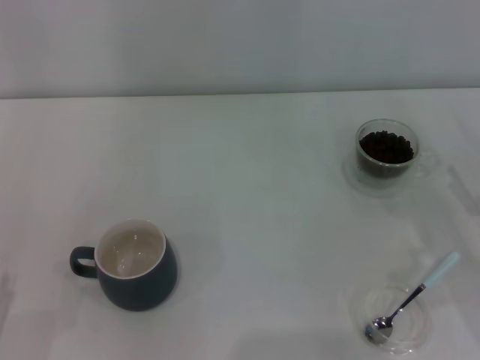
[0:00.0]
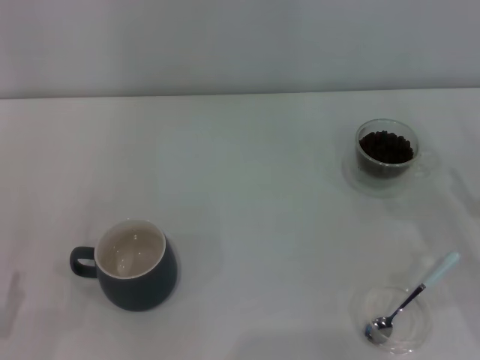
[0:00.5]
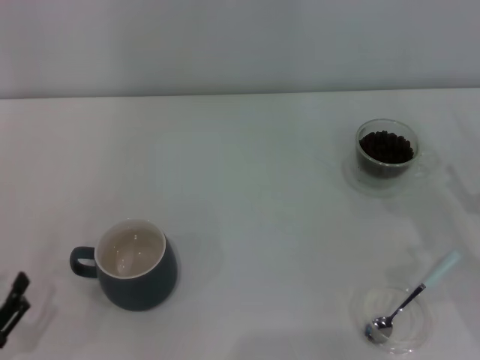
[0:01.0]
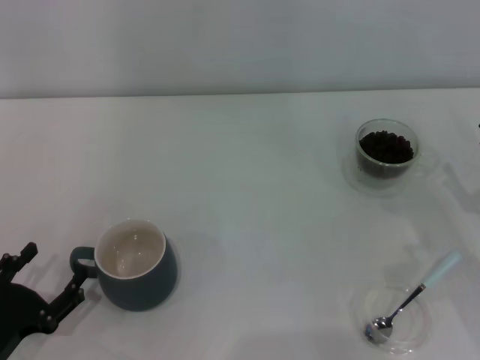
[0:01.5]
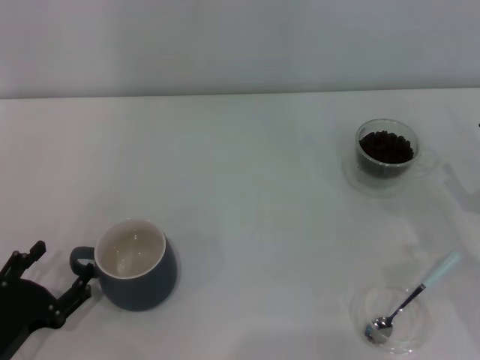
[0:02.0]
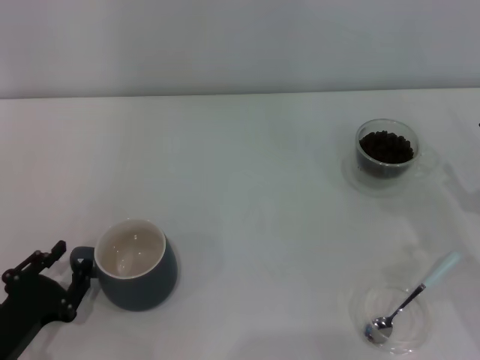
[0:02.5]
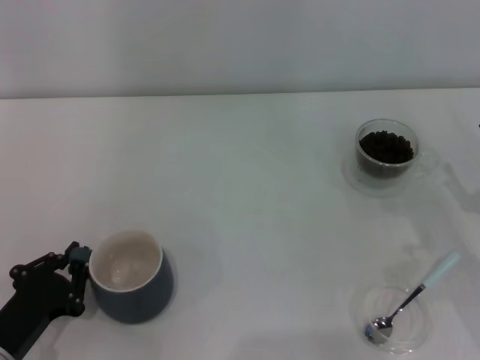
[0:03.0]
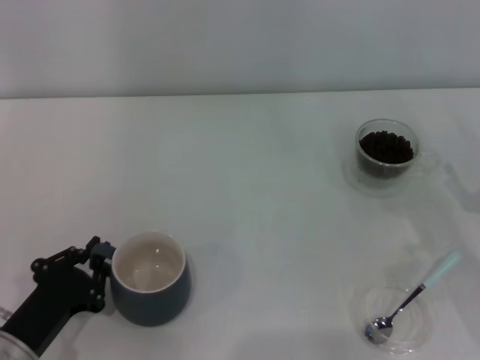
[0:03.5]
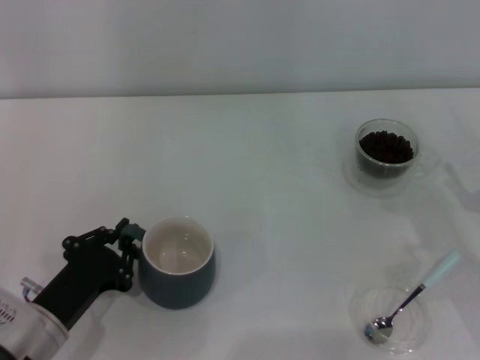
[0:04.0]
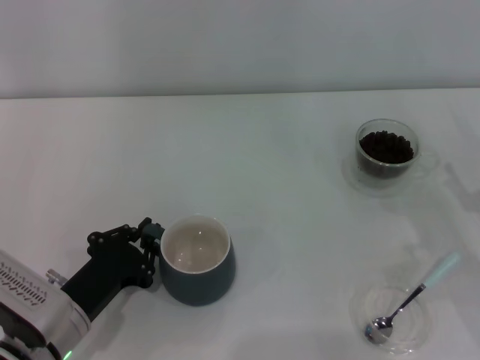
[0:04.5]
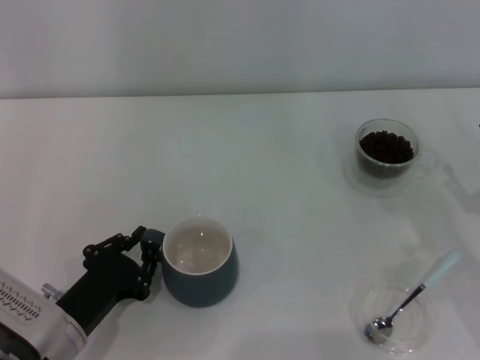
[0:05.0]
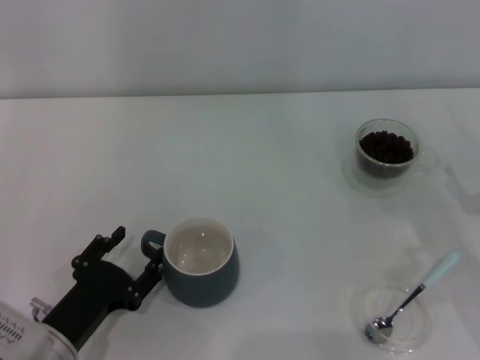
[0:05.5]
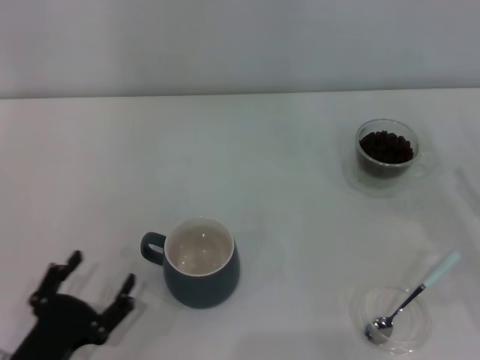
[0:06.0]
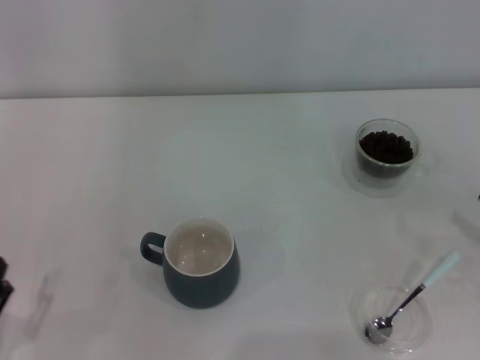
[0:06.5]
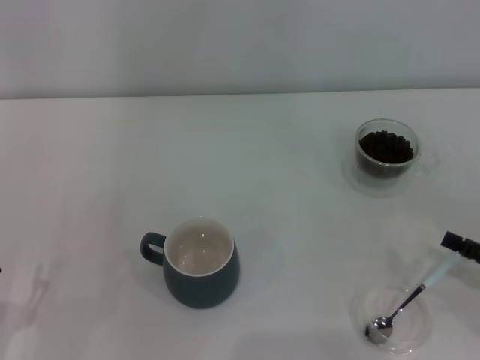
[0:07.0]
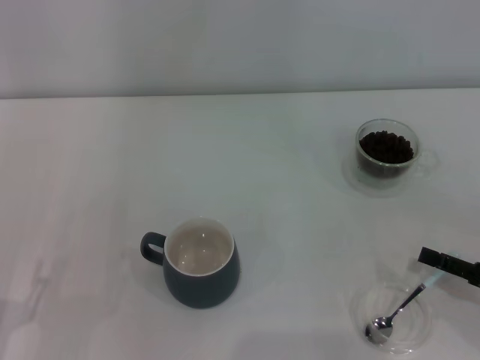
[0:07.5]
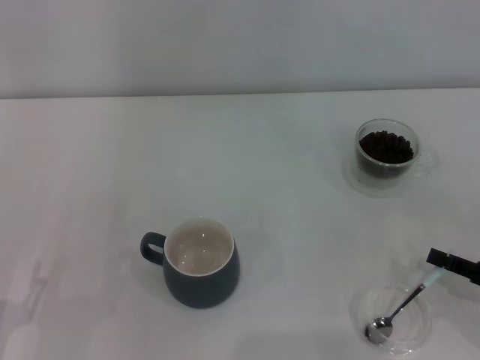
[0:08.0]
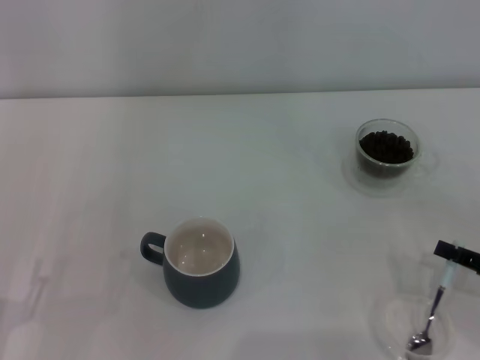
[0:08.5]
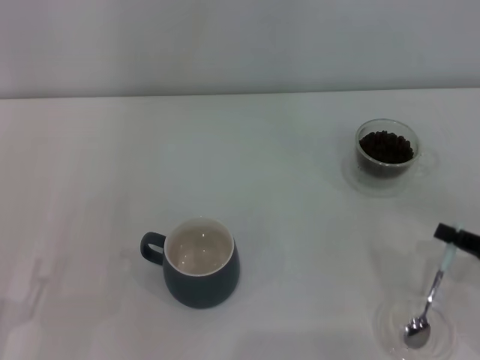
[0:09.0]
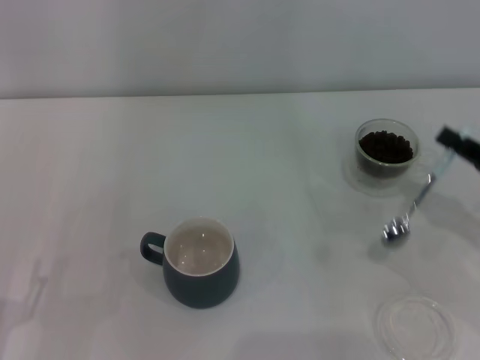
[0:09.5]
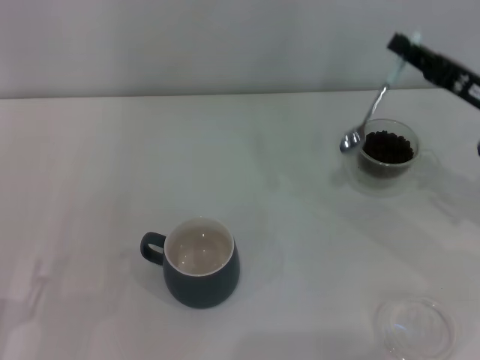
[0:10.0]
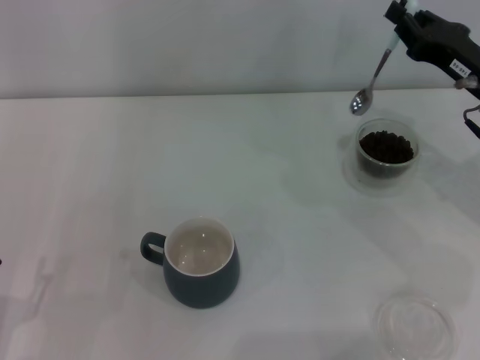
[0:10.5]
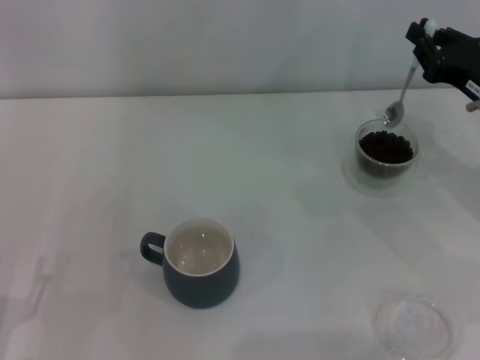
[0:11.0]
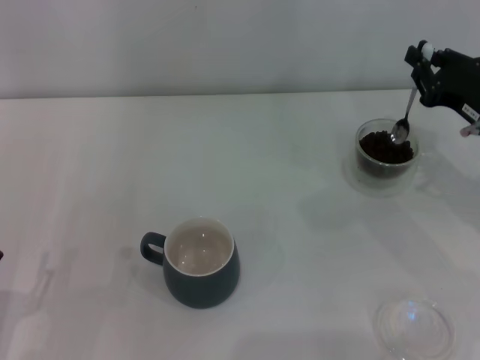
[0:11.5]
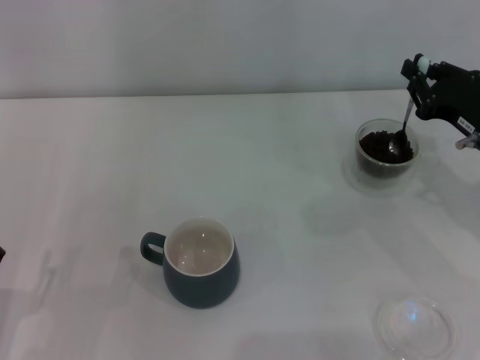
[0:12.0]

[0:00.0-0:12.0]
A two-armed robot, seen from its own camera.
Task of the whole recording: Use a blue spoon to take out the coffee beans from the glass and pour them into the gray cup.
Step, 0:00.0 to 0:05.5: Move the cup to the center of view with the left gripper.
Step, 0:06.0 to 0:09.0: Pick up the spoon with the right gripper.
0:00.0 to 0:02.0: The left gripper is displaced forward by approximately 5 cm.
0:02.0 to 0:04.0: The left gripper is displaced to the right by approximately 5 cm, and closes.
0:04.0 to 0:06.0: The left gripper travels backward by roughly 5 cm, and opens.
0:06.0 to 0:08.0: The right gripper closes its fingers. Meanwhile the left gripper is displaced to the left by some 5 cm.
0:08.0 to 0:10.0: The right gripper shifts about 15 cm forward and upward, and closes its fingers.

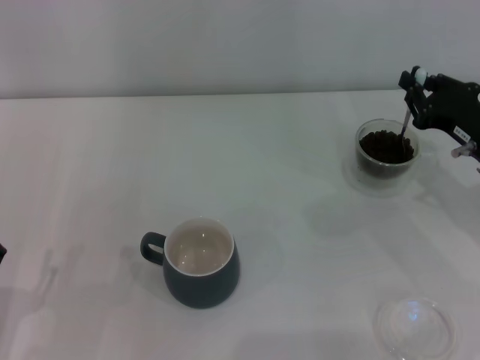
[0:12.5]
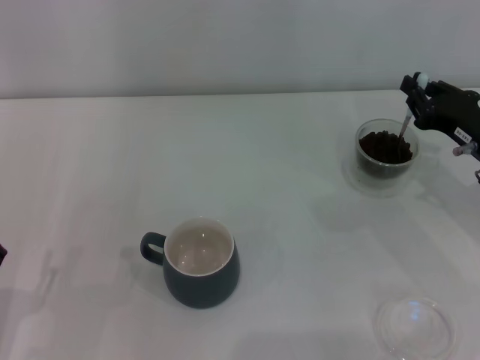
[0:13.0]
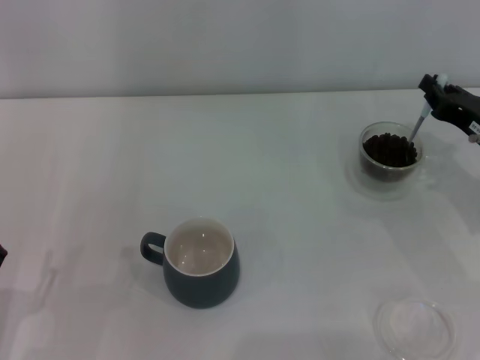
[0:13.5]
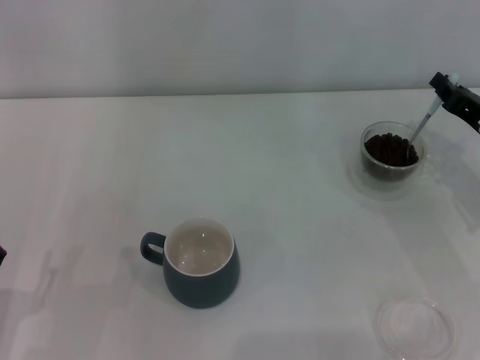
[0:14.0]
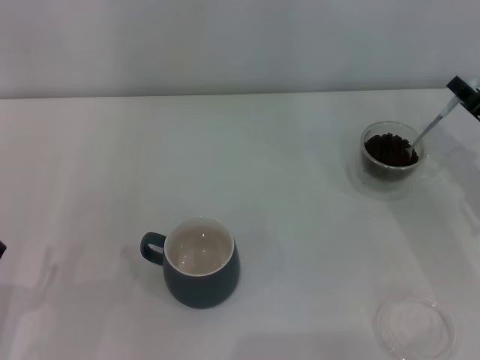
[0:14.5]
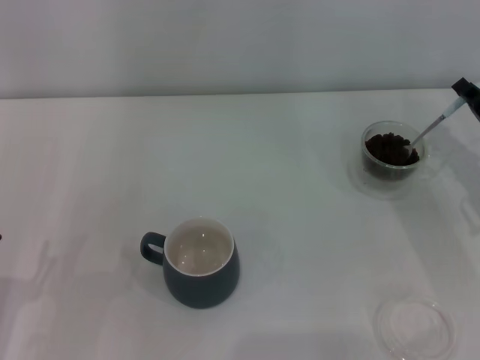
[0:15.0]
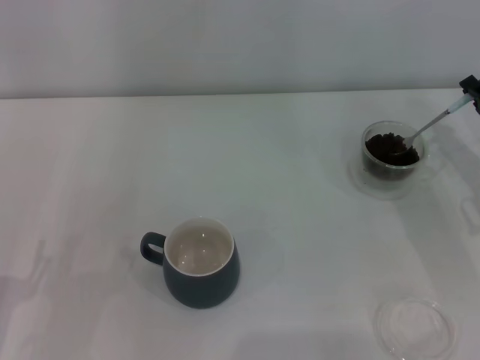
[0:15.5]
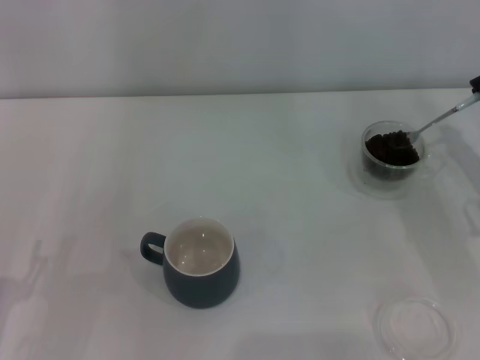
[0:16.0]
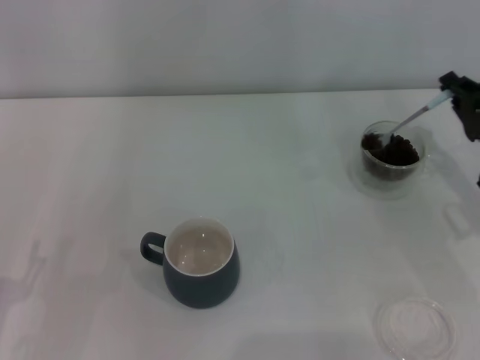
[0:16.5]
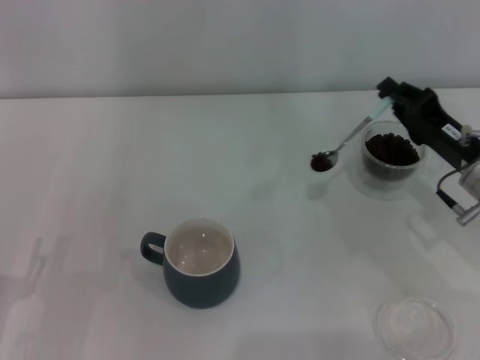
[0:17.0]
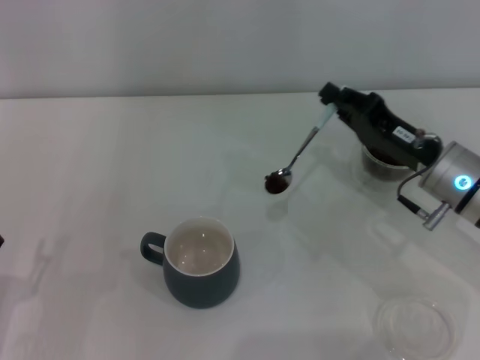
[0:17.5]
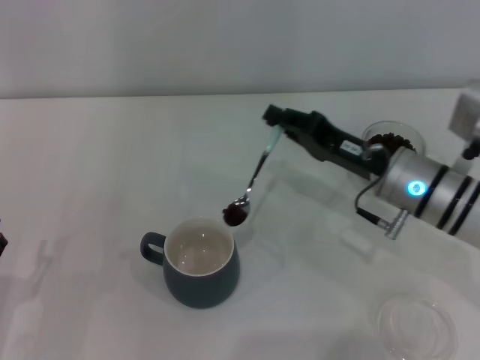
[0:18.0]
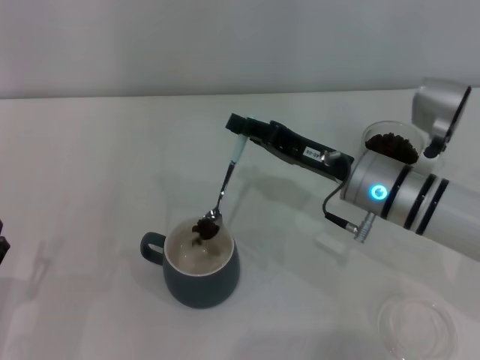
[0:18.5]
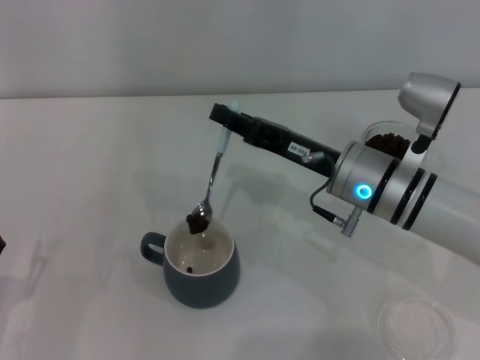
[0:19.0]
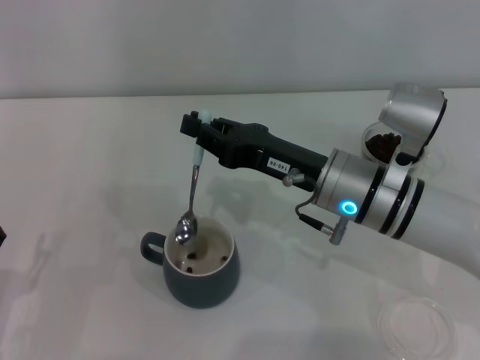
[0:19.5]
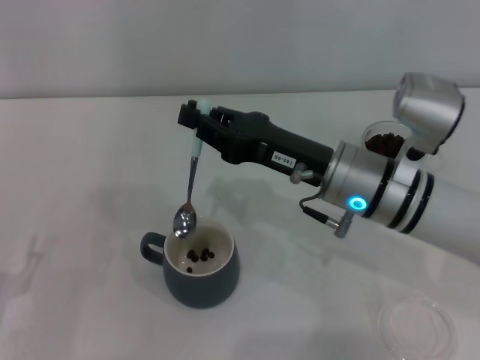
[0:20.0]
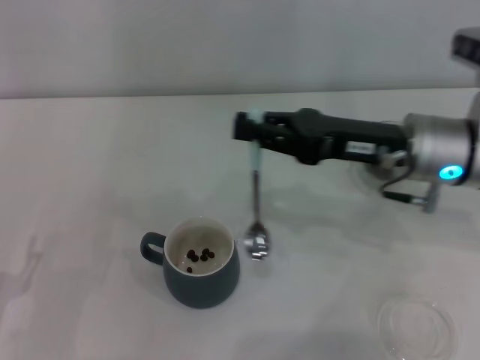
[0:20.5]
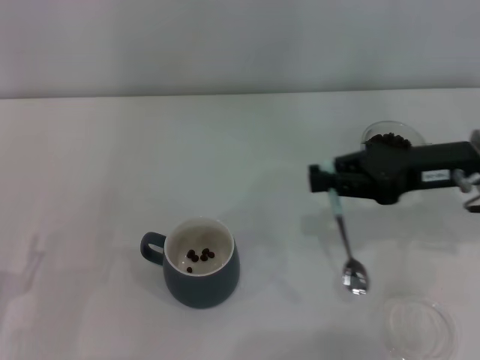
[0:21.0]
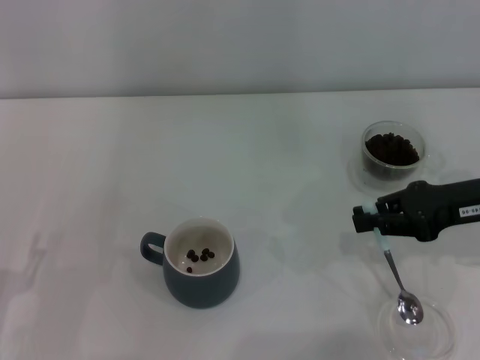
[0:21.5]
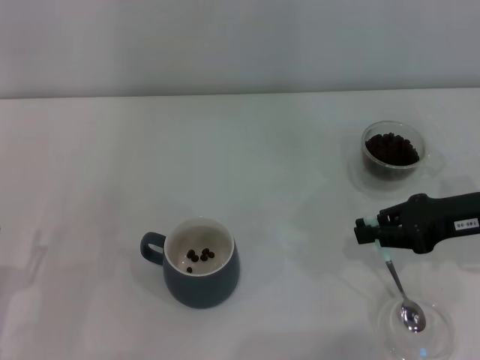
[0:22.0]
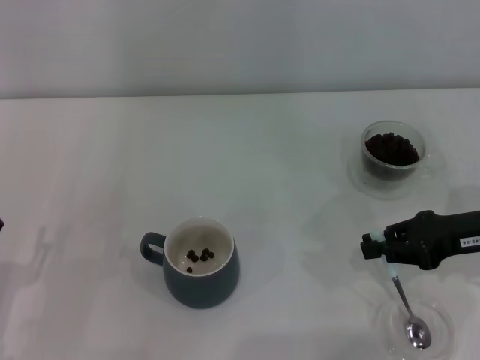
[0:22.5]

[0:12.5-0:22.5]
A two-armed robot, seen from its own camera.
Task of the whole recording: Use a blue spoon to take out the coffee beans from the glass and pour them into the gray cup.
Step, 0:12.5 to 0:20.0: Scoop a spoonful of beans into the cup with the right gripper.
0:16.5 to 0:18.5: The right gripper moves to the left, roughly 15 cm.
0:18.5 to 0:20.5: The right gripper travels upward by roughly 5 cm.
0:20.5 to 0:22.5: The right gripper heads to the right, covering roughly 10 cm.

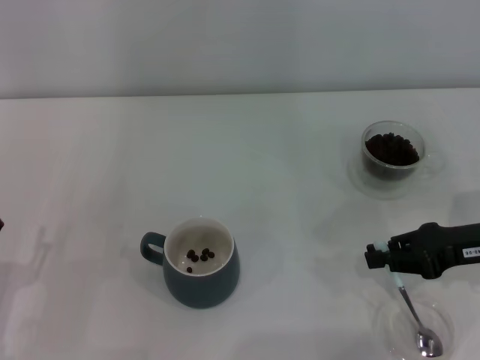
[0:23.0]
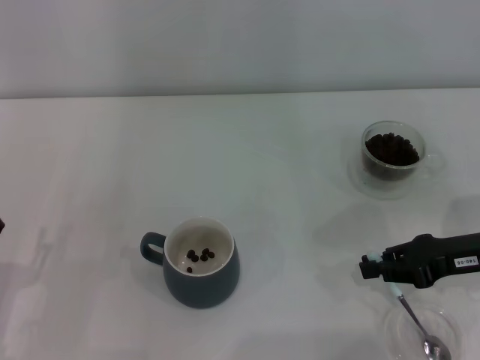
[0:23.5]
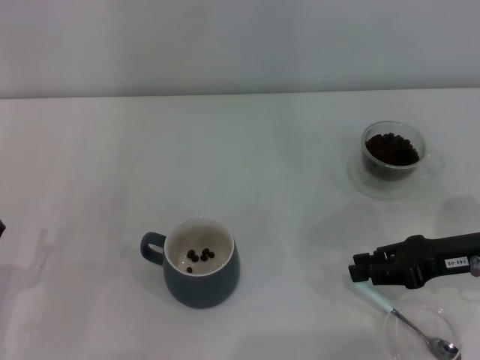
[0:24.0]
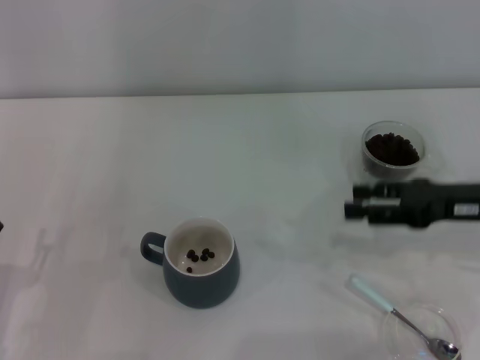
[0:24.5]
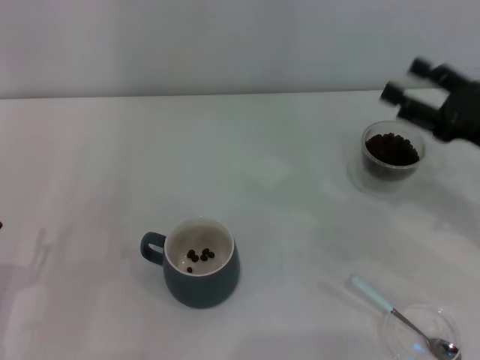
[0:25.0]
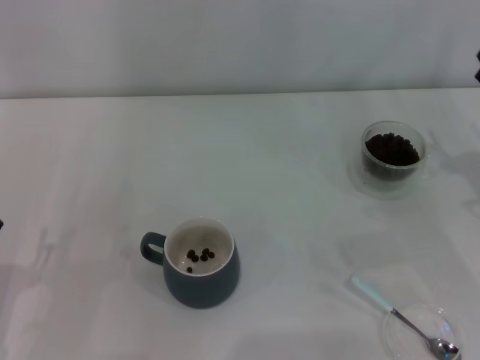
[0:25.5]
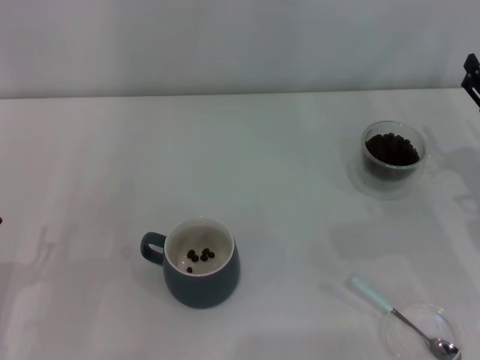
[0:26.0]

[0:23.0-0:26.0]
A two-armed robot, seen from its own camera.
Task of the whole recording: Use a blue spoon to take out the coffee beans from the glass and pour them into the gray cup.
0:23.0 to 0:24.5: The right gripper opens up.
0:24.5 to 0:26.0: The right gripper opens its fingers.
